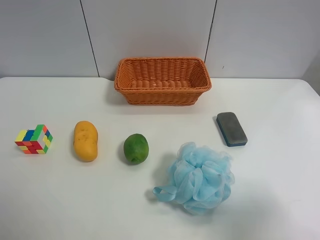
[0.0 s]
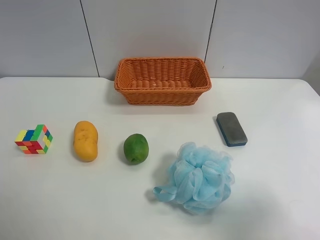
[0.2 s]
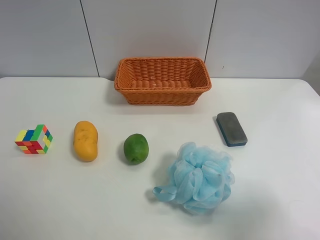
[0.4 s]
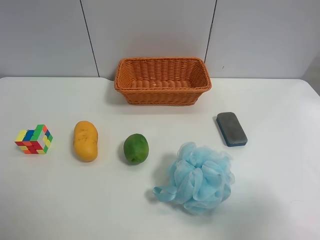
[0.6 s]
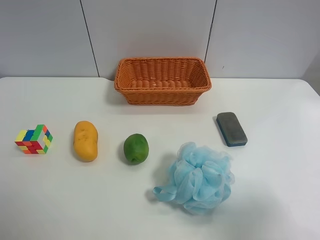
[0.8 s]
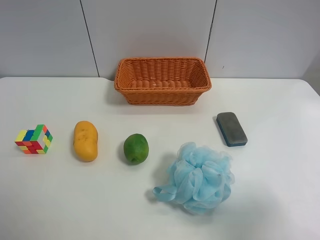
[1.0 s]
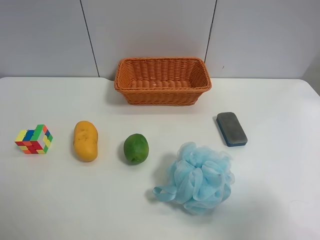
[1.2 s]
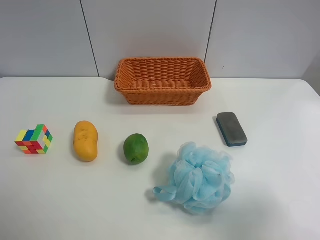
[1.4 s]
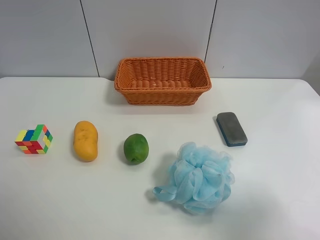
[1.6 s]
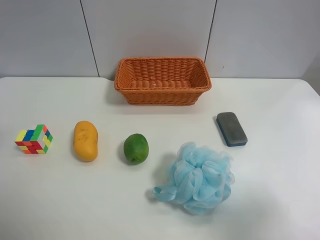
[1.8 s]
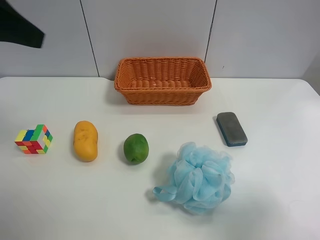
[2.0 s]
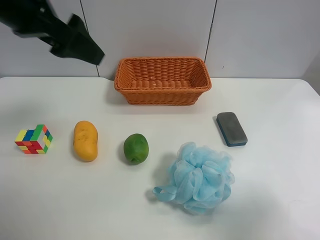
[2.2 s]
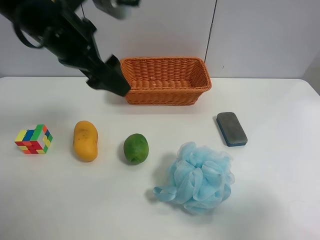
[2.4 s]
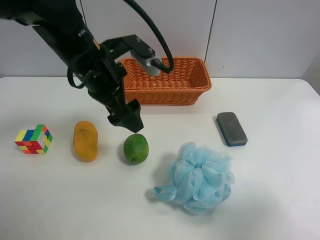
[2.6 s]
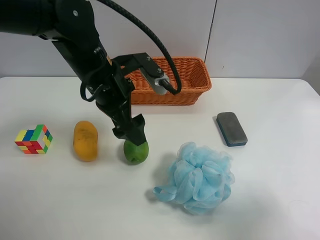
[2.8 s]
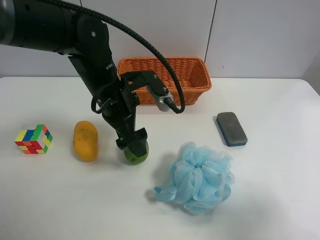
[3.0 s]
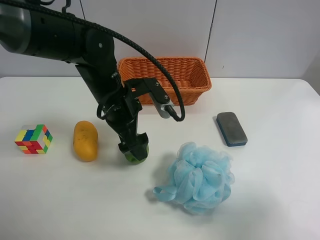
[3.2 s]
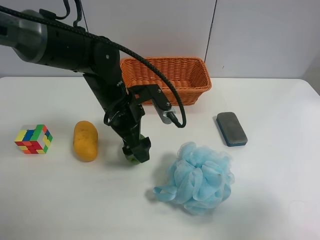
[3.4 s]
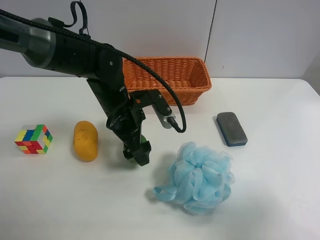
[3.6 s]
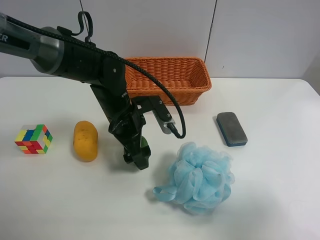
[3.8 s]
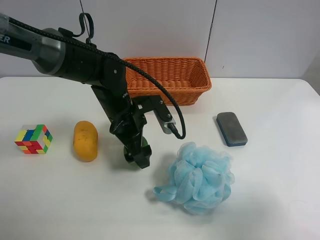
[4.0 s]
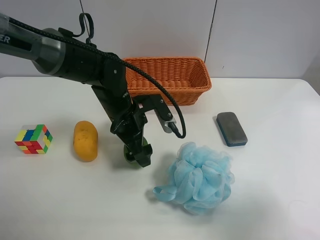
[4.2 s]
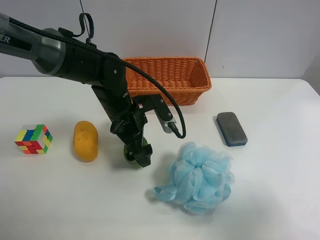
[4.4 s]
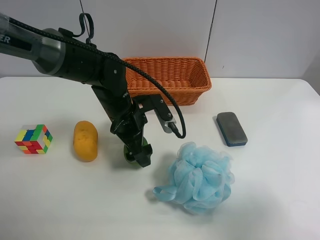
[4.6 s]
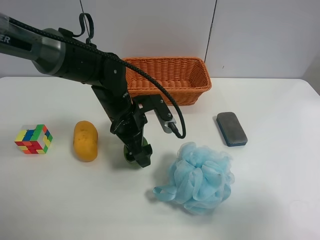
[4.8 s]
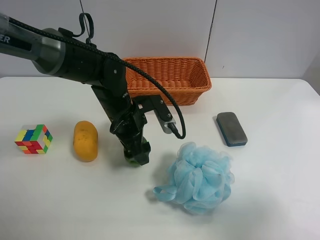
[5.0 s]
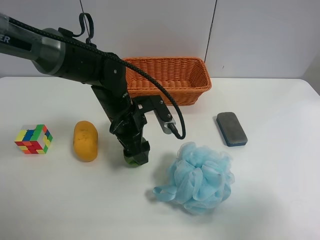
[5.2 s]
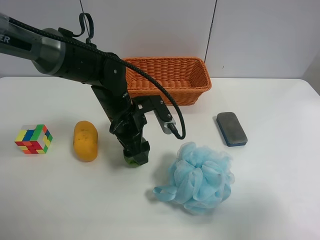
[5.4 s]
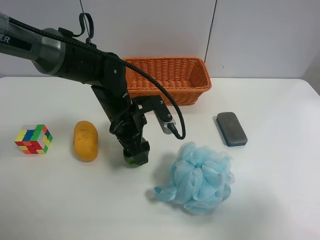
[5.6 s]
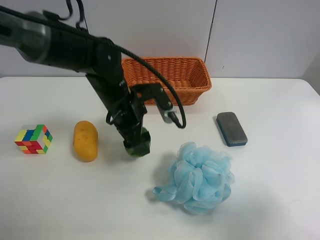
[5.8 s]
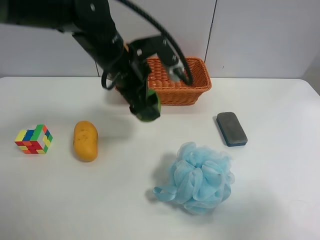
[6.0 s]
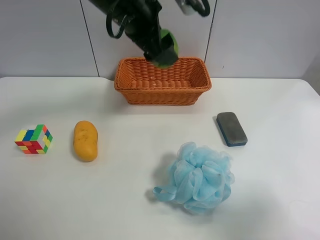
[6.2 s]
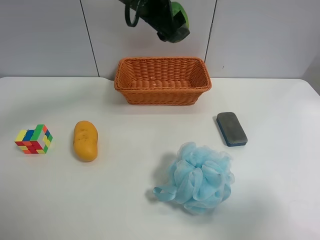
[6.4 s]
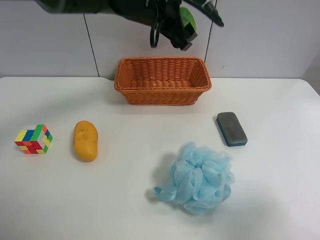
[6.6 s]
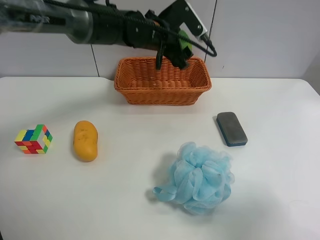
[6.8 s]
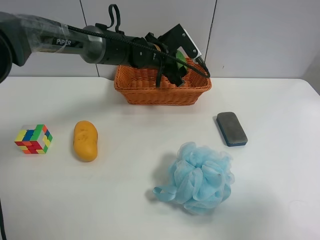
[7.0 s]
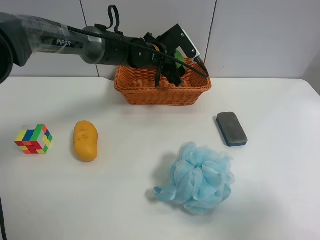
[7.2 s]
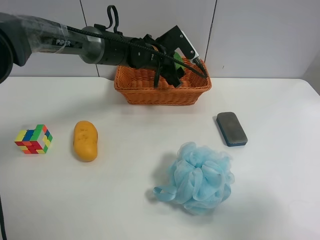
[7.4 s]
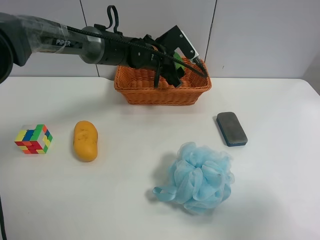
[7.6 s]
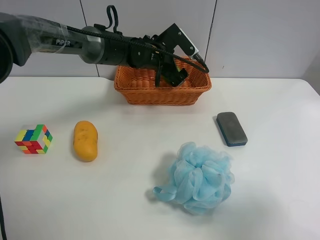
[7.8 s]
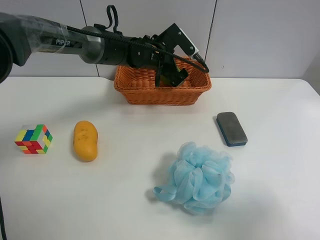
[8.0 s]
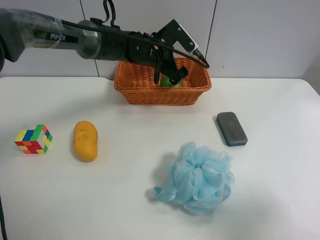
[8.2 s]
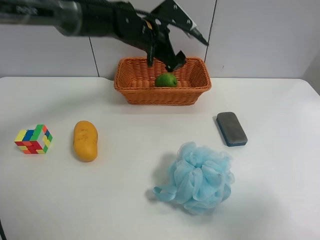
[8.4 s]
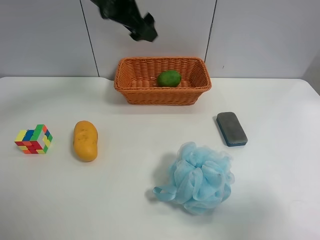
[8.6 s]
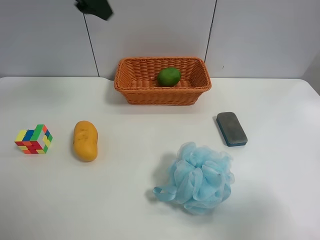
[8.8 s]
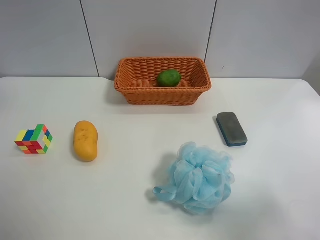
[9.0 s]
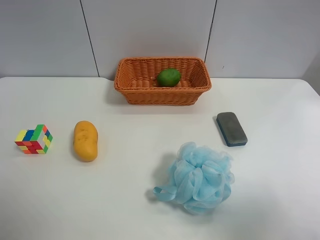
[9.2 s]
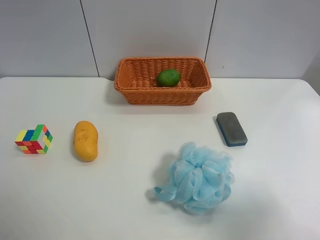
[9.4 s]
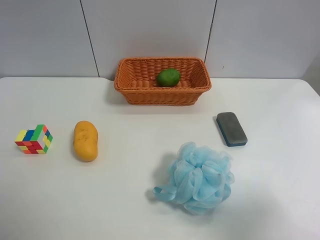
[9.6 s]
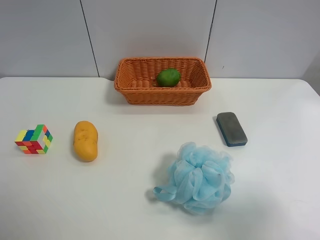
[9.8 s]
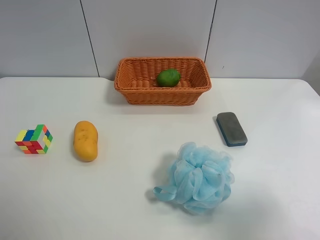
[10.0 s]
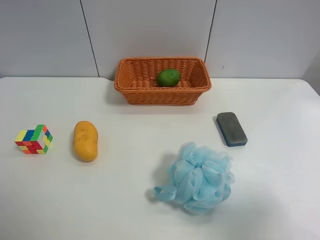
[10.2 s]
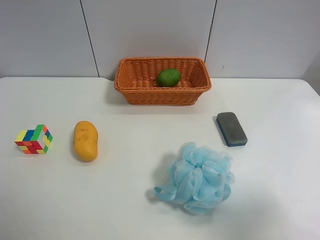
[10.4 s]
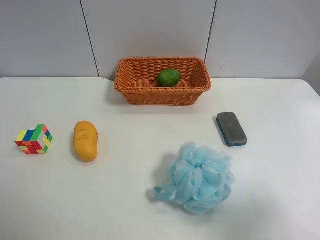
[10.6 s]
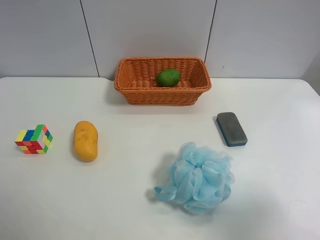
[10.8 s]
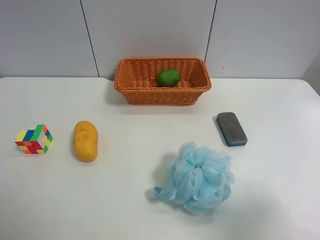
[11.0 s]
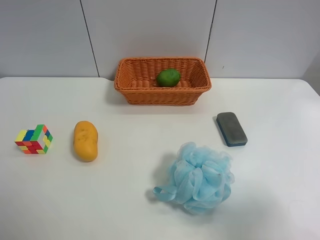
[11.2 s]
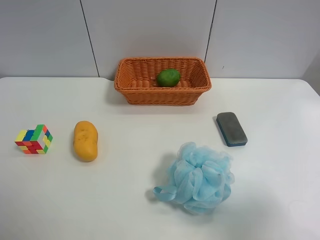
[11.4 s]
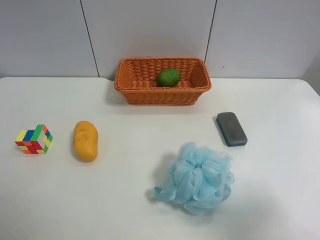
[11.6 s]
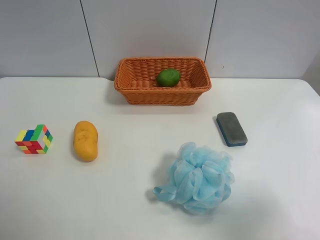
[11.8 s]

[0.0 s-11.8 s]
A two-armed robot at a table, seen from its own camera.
Task of the whole recording: Randomly grab green lemon or mangoes from the table and put them in a basket.
Step, 0.0 to 5.2 s: Grasp the Lemon with the left gripper.
Step, 5.4 to 8.4 s: Place the Lemon into the basket with the left gripper.
1.4 to 3.0 s: The left gripper shifts roughly 35 cm forward, to the right and downward.
3.0 to 4.4 s: The left gripper heads downward, covering approximately 5 cm.
4.4 to 6.0 s: The left gripper heads upward, covering roughly 10 cm, and closes.
6.0 to 7.4 s: The left gripper goes about 15 cm forward and downward.
7.4 to 8.8 s: The left gripper is displaced upward and to the left by approximately 25 cm, and opens.
8.8 to 10.4 s: The left gripper travels backward by roughly 35 cm.
10.4 to 11.8 s: Neither gripper changes place.

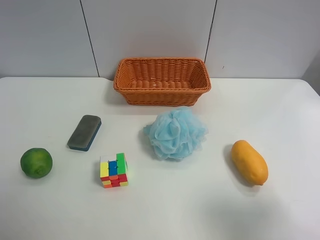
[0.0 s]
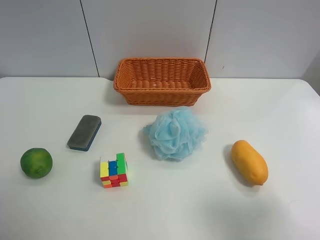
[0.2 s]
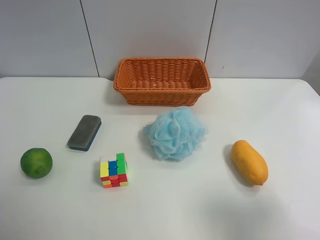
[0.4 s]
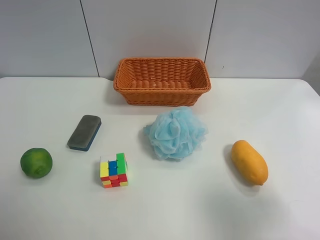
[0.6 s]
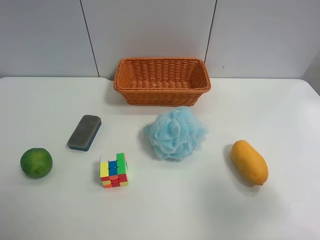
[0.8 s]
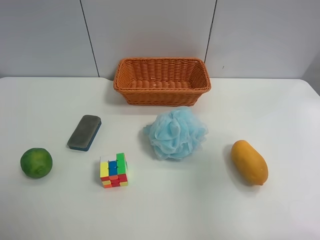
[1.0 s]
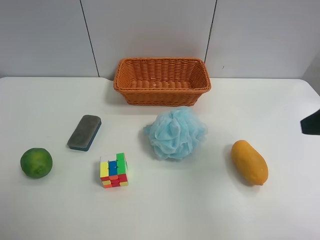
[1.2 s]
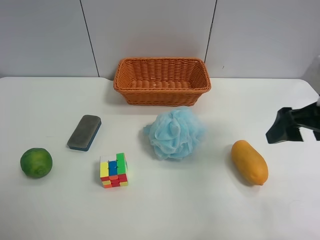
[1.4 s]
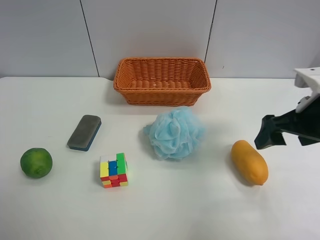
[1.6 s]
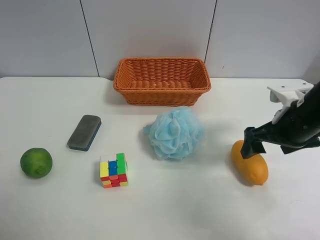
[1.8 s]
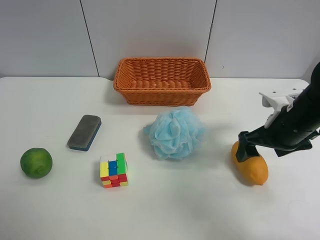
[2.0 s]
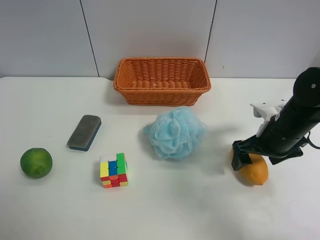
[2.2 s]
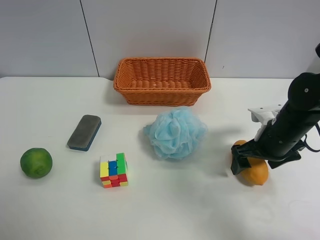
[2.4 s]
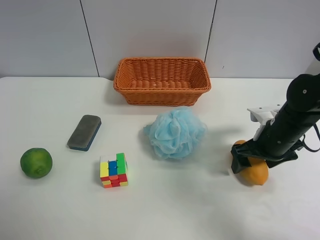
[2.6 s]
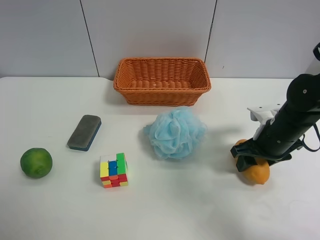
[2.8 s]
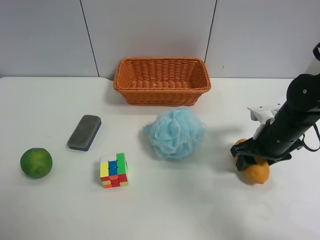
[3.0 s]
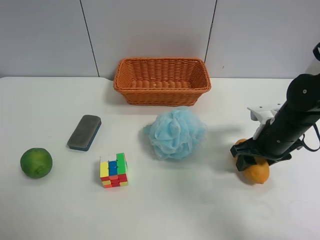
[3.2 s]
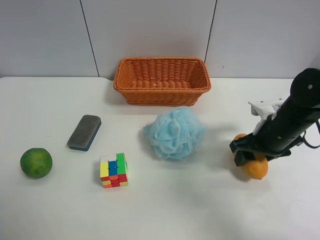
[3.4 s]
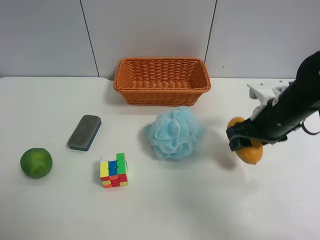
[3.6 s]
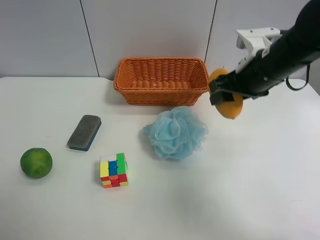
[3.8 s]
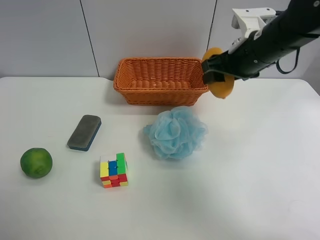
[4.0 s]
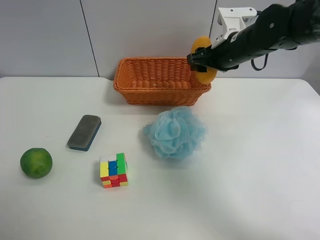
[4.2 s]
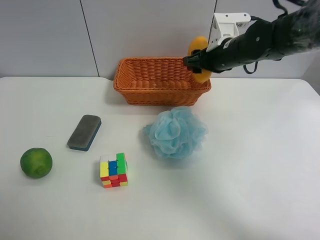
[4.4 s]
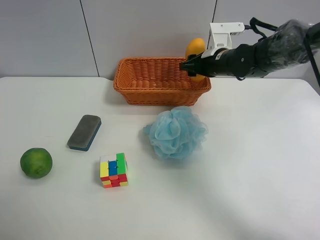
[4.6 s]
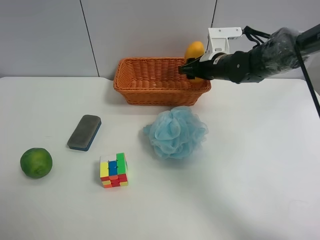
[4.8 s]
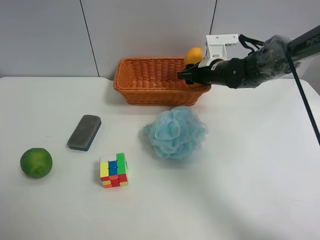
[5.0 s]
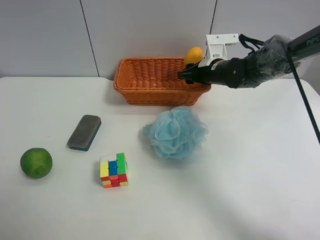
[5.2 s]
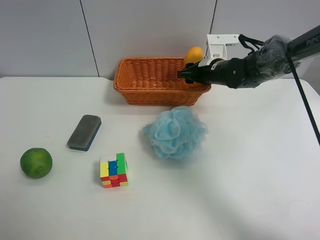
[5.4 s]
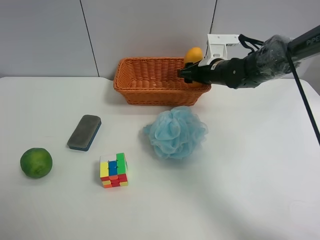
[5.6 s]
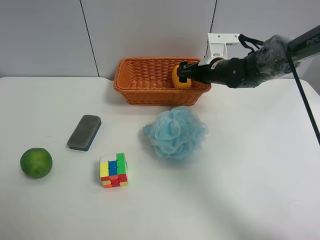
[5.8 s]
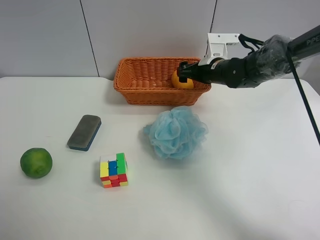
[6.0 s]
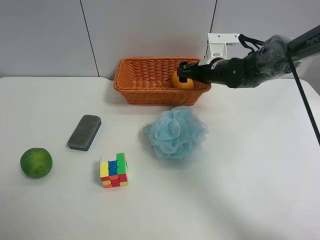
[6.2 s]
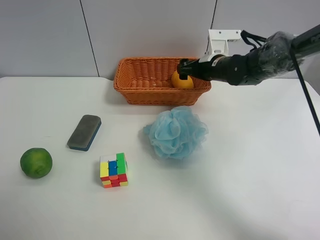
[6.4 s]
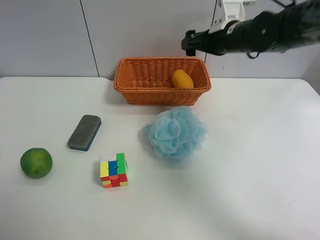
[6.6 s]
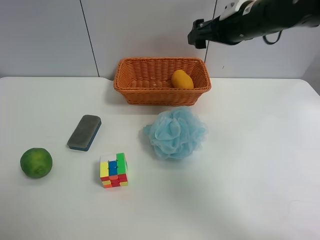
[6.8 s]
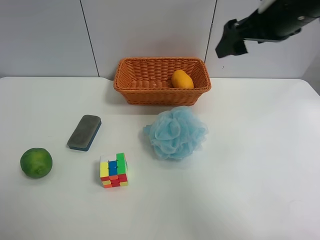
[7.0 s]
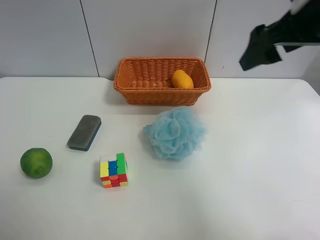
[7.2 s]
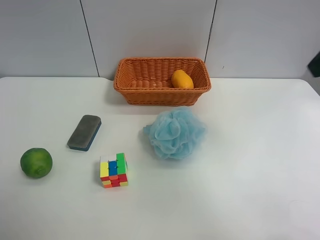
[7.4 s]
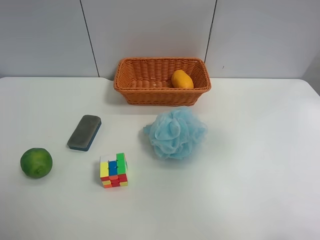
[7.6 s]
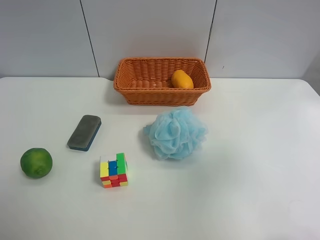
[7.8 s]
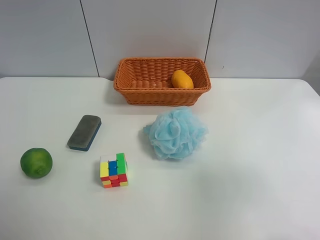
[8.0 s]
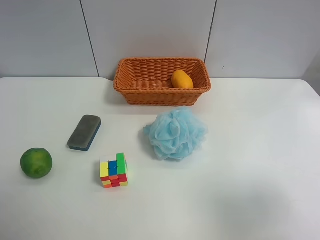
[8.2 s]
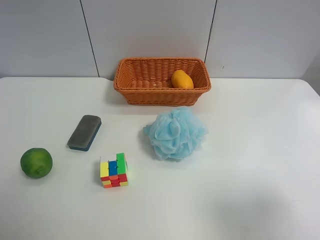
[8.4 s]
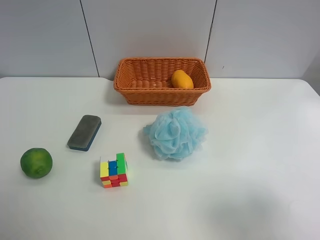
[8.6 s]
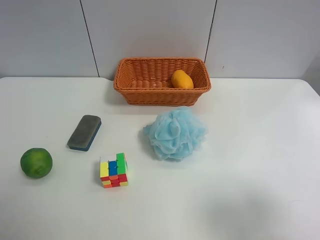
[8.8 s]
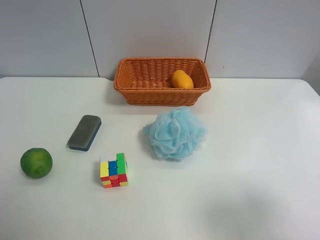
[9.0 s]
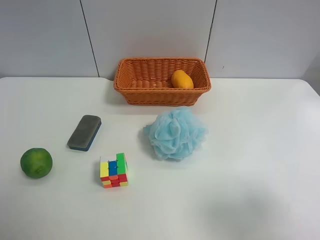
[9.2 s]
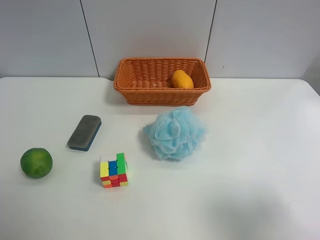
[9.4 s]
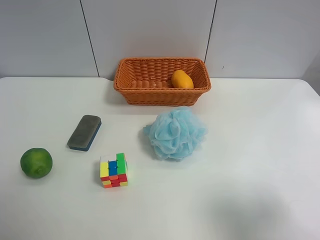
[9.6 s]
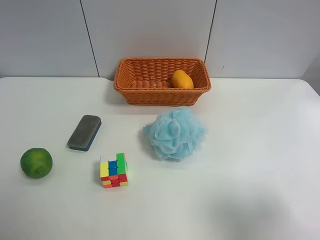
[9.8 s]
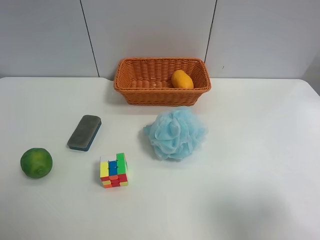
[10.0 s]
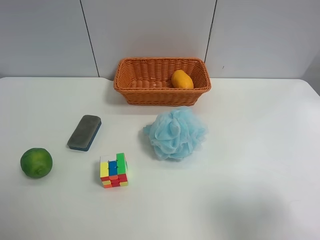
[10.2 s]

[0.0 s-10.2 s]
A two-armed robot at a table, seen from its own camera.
Task of the whole recording: Randomly grab green lemon or mangoes from the table and put them in a basket.
Step, 0.0 to 2.8 s: Grasp the mango with the right gripper.
Step, 3.0 to 6.8 s: Place the mango into the basket with the right gripper.
0.0 to 1.4 s: The right gripper shifts some 20 cm forward.
1.4 to 3.0 s: The right gripper goes some 15 cm downward and forward, and closes its fingers.
3.0 to 4.4 s: The right gripper travels forward, upward and to the left by roughly 20 cm.
4.4 to 5.8 s: The right gripper is displaced downward by about 5 cm, and opens its fingers.
5.8 to 7.2 s: The right gripper travels upward and backward by about 30 cm.
7.2 to 8.8 s: The right gripper travels backward by roughly 25 cm.
